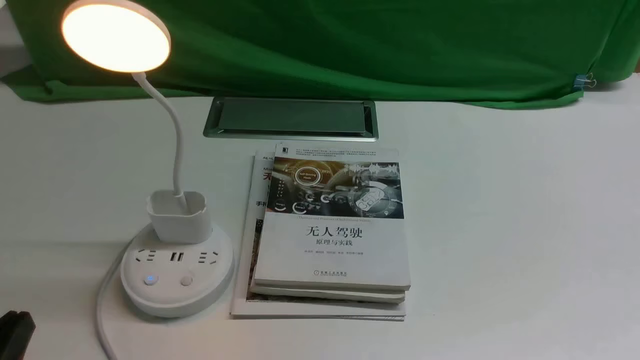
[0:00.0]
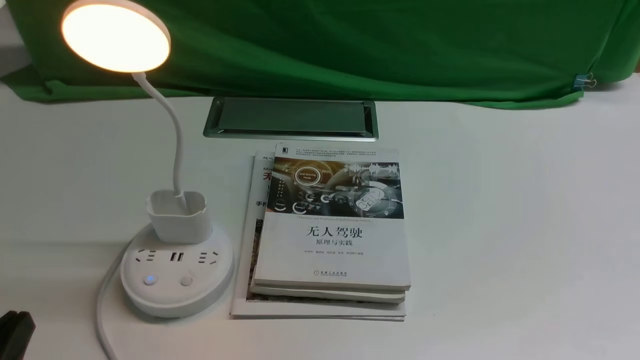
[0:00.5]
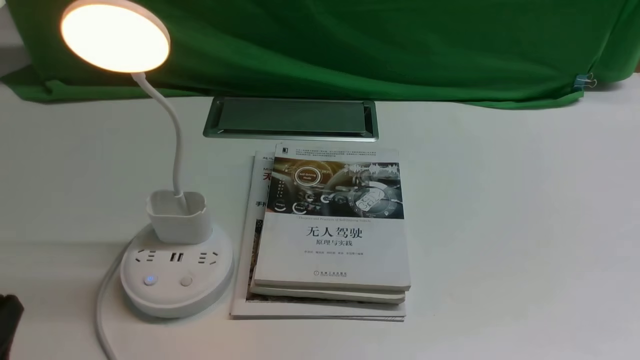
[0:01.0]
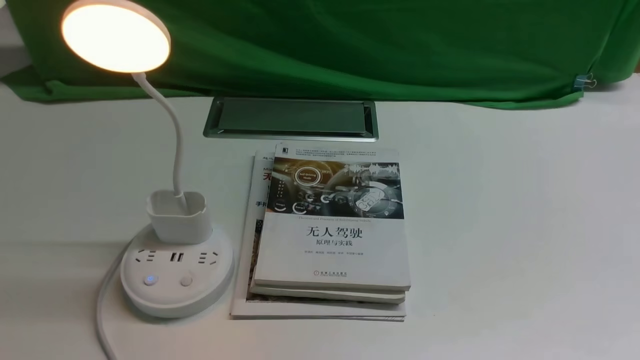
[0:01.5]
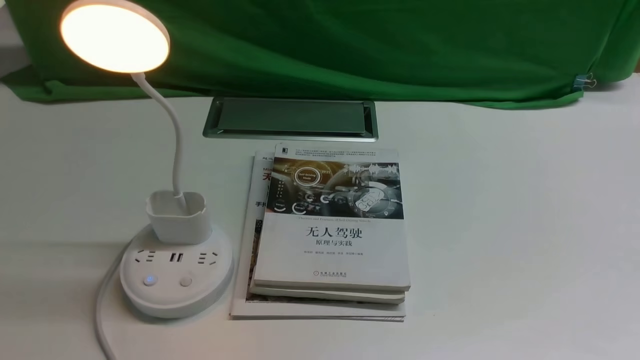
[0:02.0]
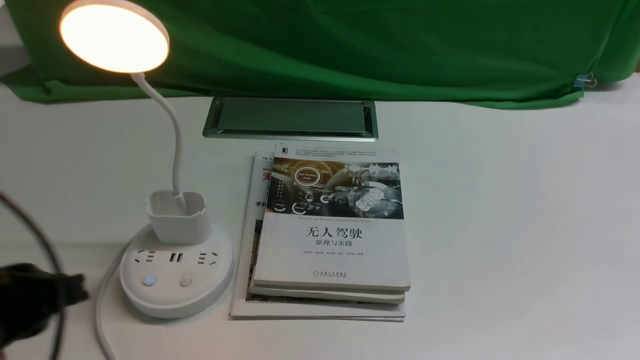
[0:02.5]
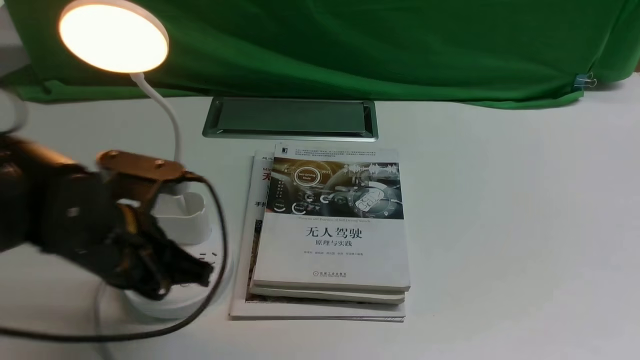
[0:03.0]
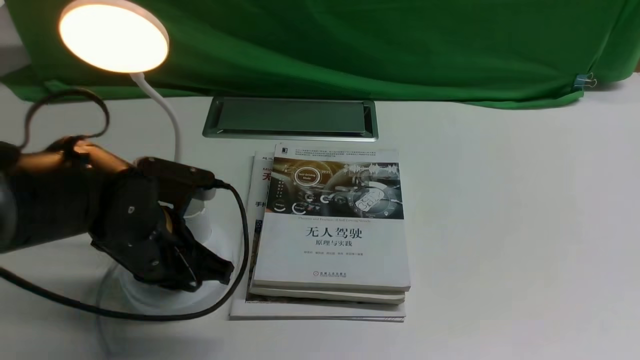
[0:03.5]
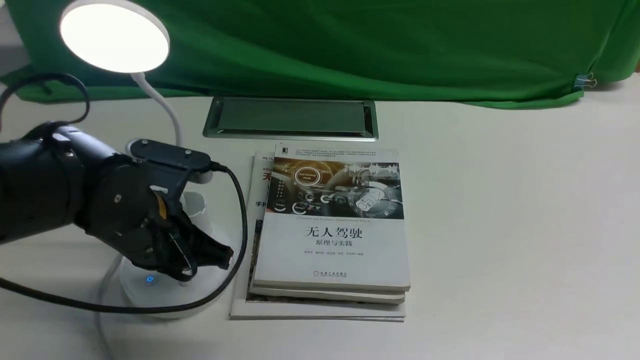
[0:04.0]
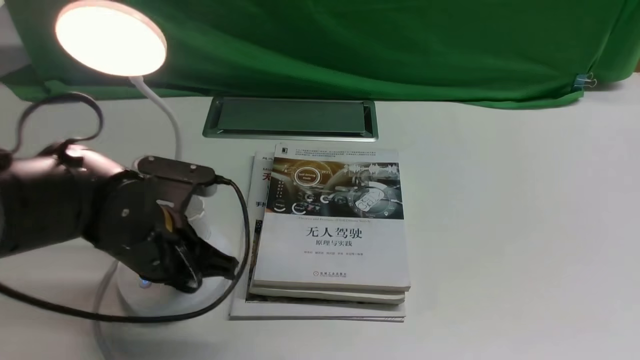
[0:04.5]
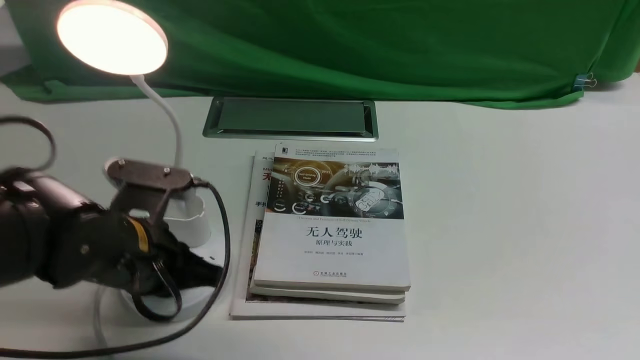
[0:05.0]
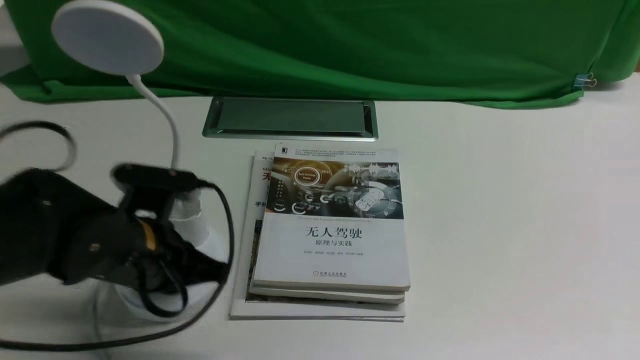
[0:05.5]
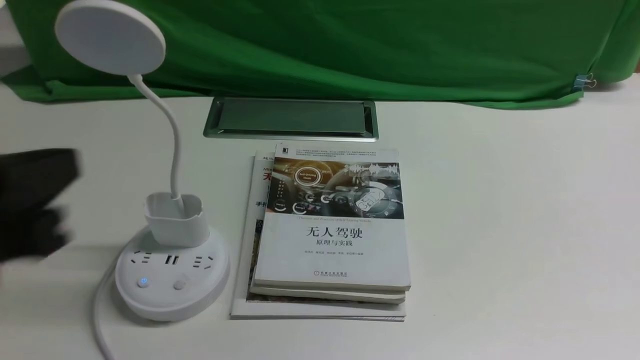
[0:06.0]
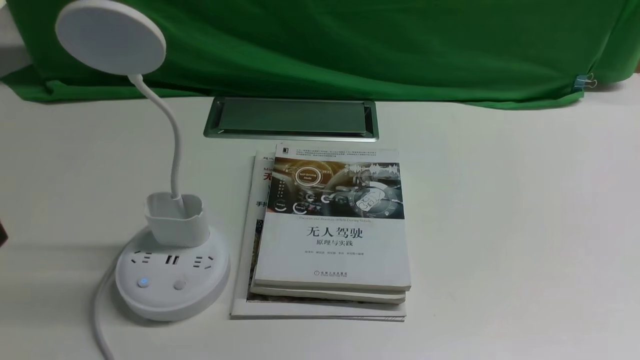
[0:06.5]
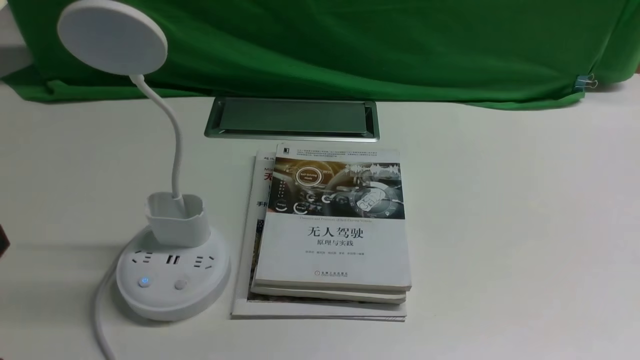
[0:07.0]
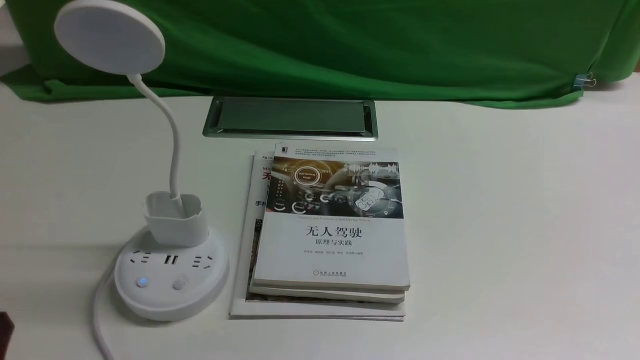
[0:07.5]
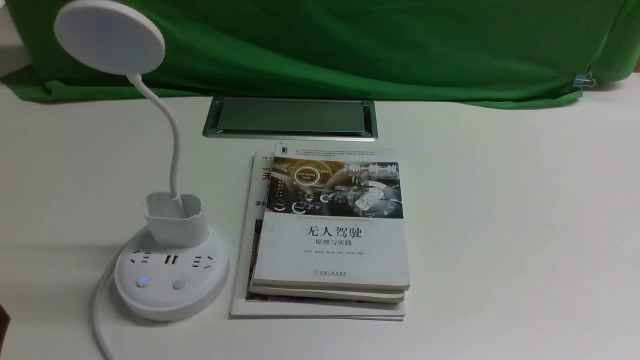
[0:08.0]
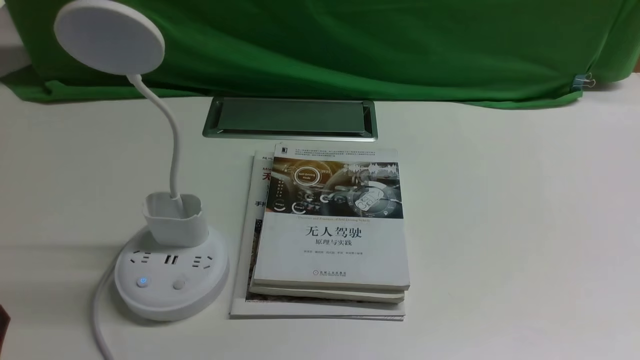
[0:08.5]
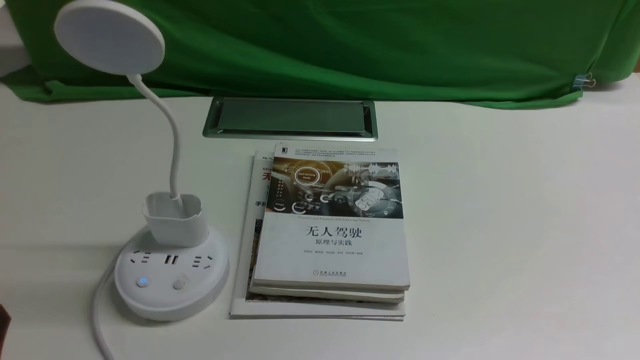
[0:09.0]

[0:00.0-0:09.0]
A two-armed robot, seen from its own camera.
Task of the whole recording: turn off the desk lamp on the white desktop by hand.
Step, 0:00.0 to 0:05.5: use the left arm to press the button switch on the lamp holder.
0:00.0 to 0:02.0: The left gripper shifts about 10 cm upward.
0:02.0 to 0:04.5: The left gripper travels forward, downward and to the right by about 25 cm.
0:04.5 to 0:07.0: The left gripper shifts about 25 cm backward, to the left and upward.
0:07.0 to 0:09.0: The left gripper moves downward, approximately 10 cm, and opens its fingers.
